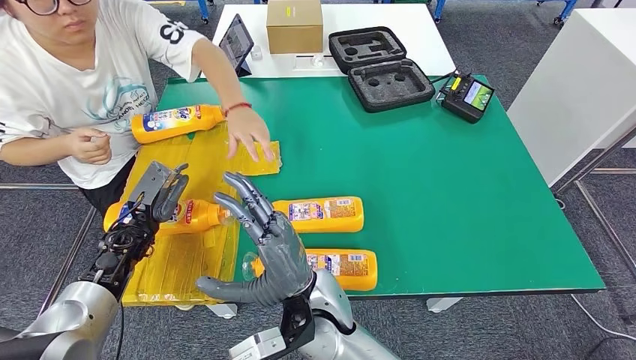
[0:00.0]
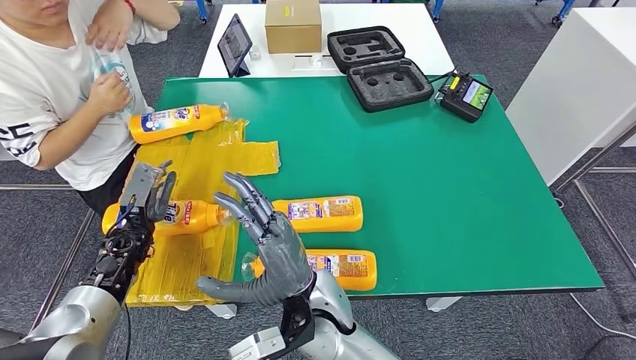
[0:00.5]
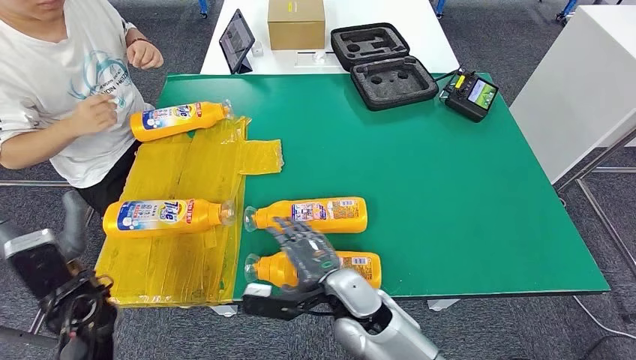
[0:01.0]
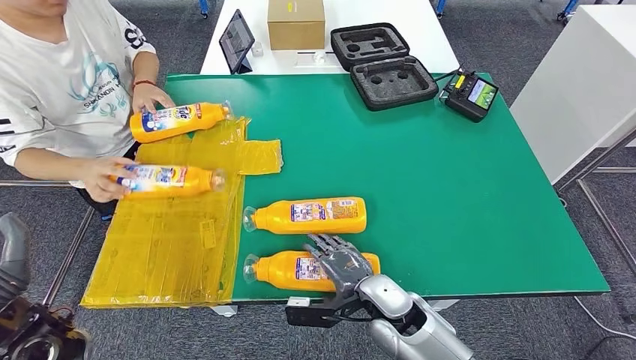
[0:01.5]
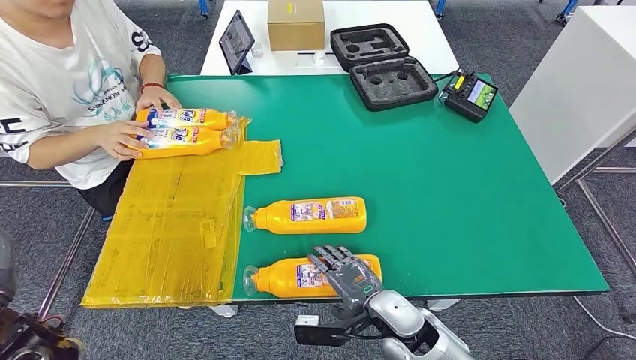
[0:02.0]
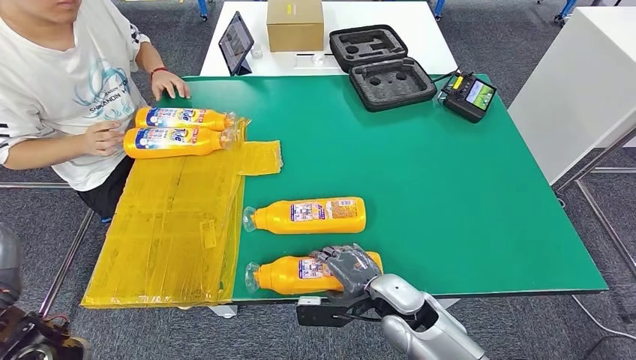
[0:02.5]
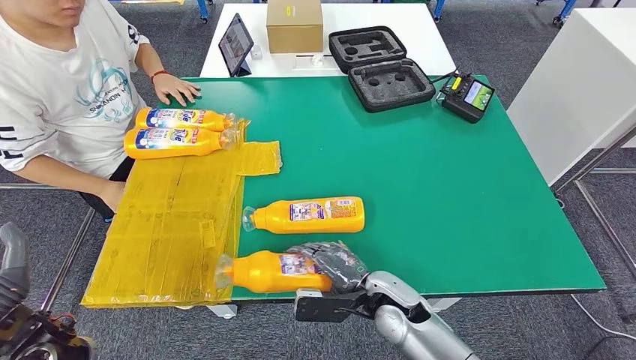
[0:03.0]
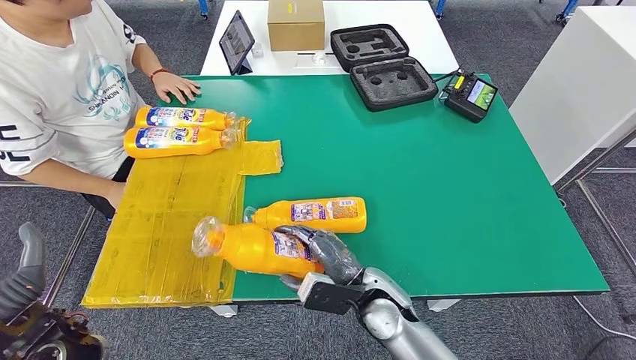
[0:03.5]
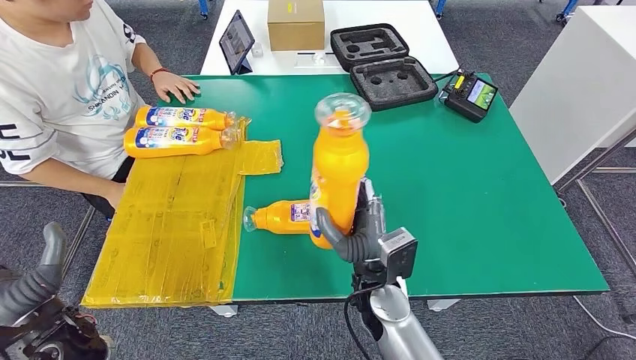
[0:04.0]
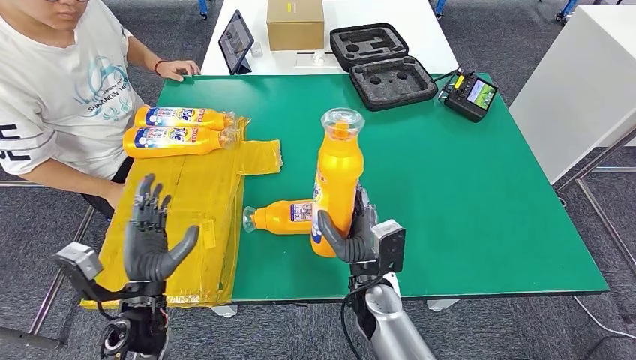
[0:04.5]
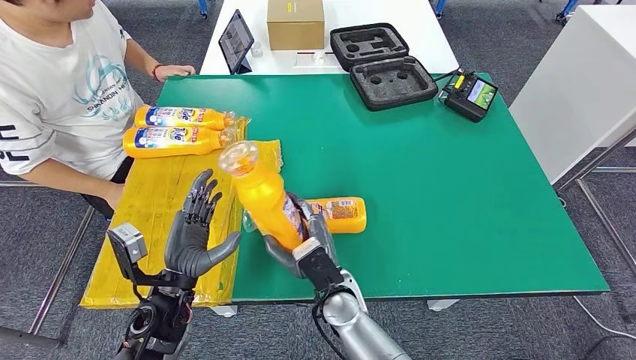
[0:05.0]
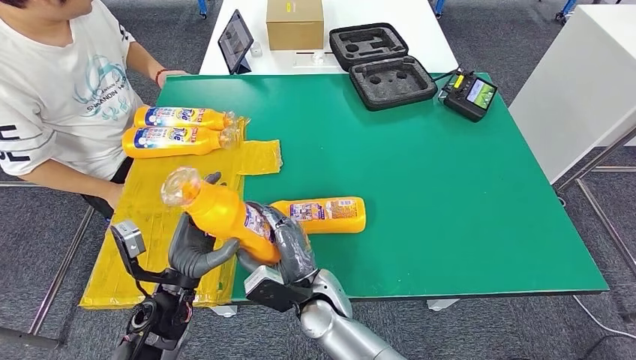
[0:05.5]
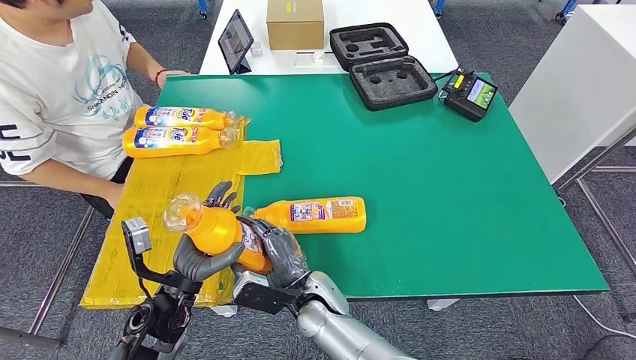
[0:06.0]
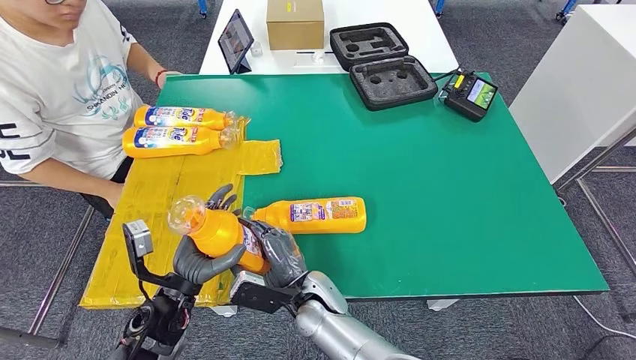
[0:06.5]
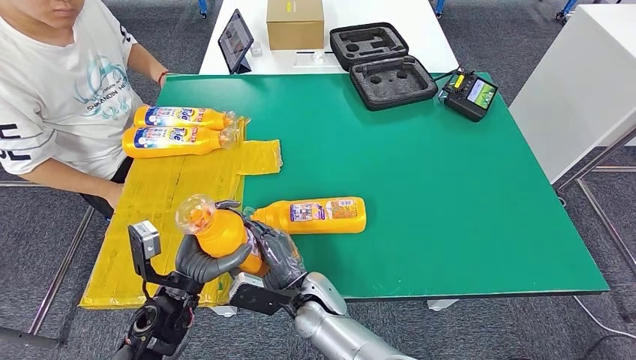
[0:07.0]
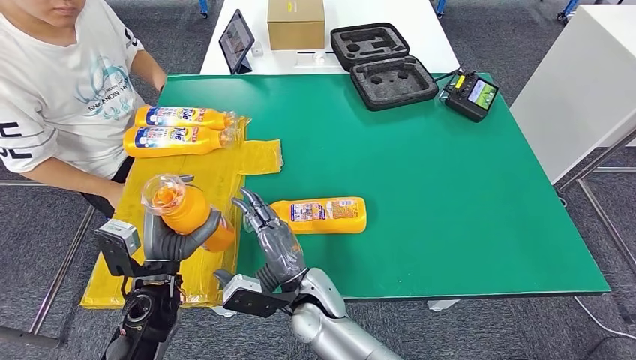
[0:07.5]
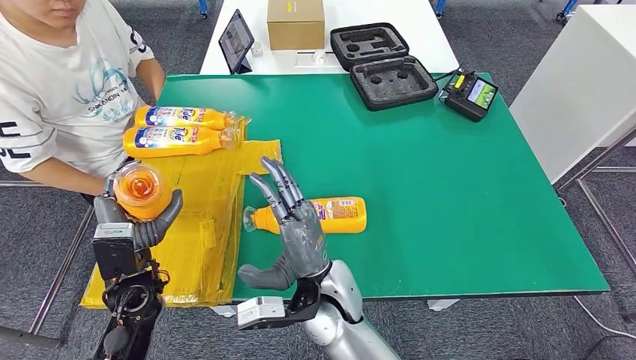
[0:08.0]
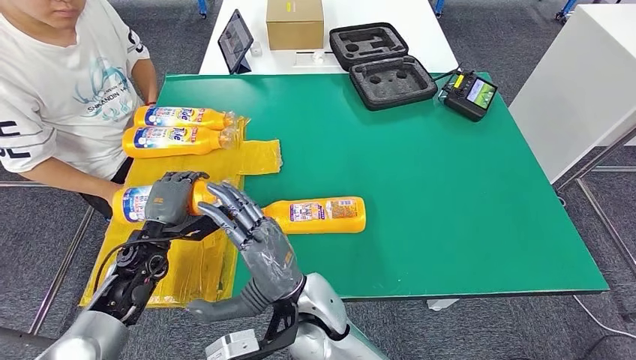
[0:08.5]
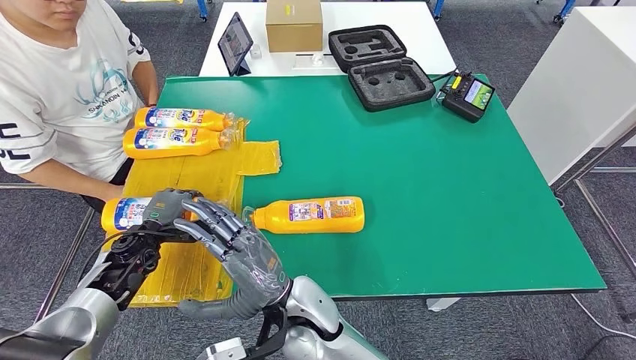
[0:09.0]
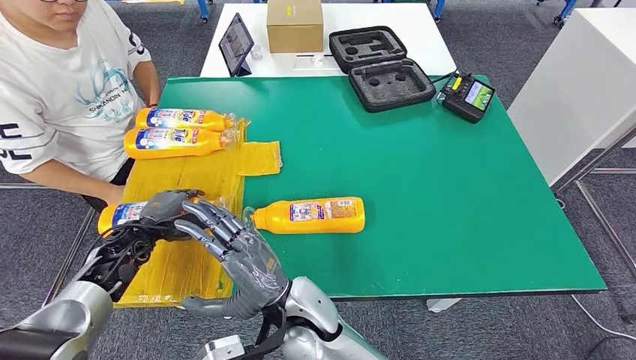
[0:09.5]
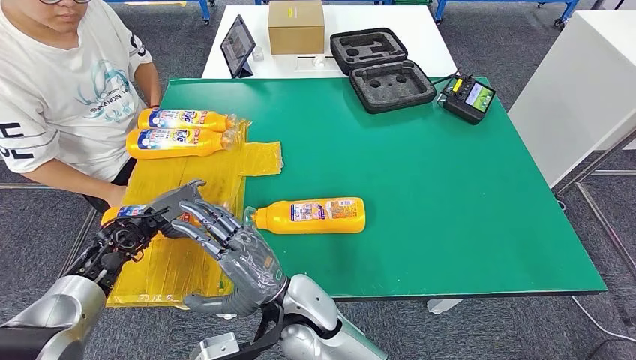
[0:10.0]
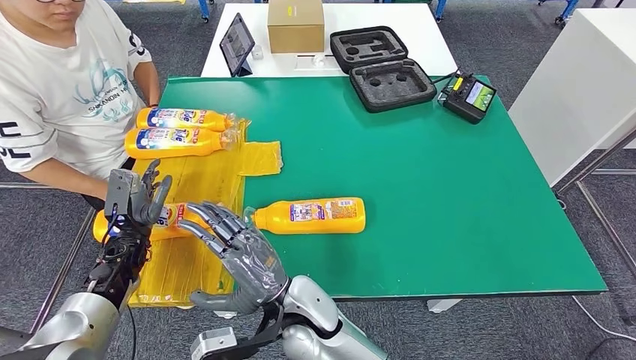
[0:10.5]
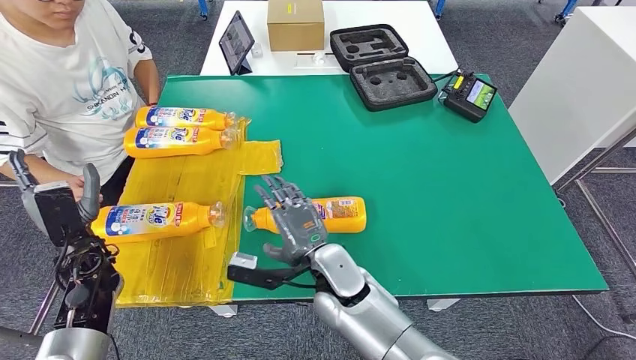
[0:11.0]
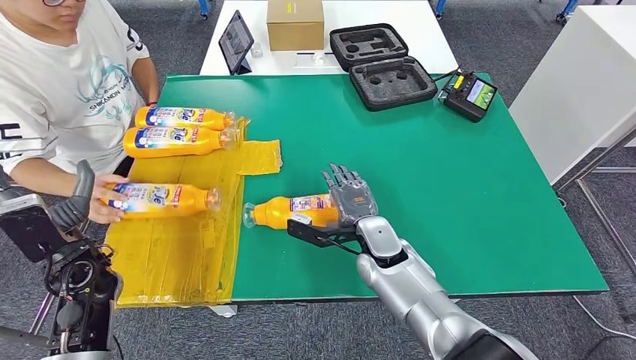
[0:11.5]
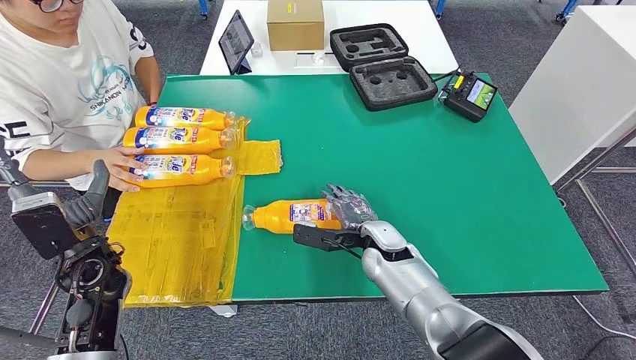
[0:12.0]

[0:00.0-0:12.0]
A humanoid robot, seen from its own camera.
Step, 0:03.0 to 0:04.5: Pick up the bottle from the table.
Step, 0:06.0 to 0:10.5: Flip the bottle to face forward.
0:02.0 to 0:04.0: The right hand changes place by some 5 cm.
0:06.0 to 0:08.0: The left hand travels to the left by about 5 cm, while the right hand is displaced upward by about 10 cm.

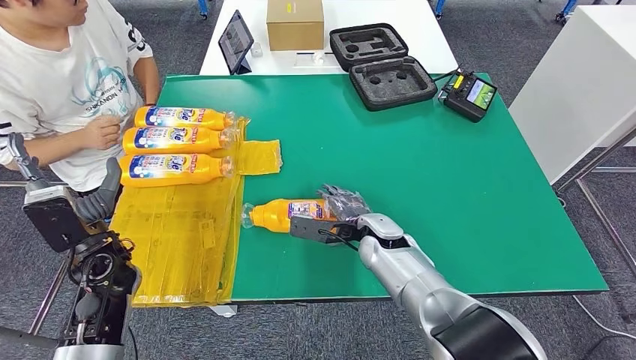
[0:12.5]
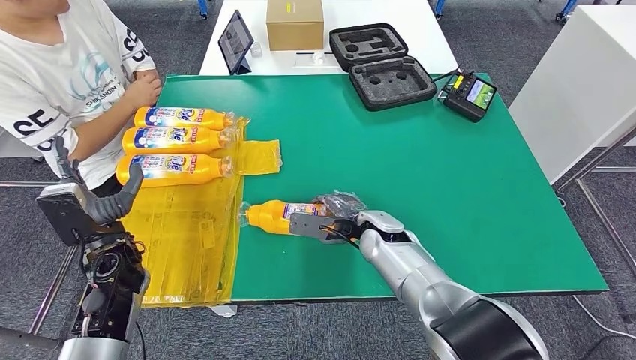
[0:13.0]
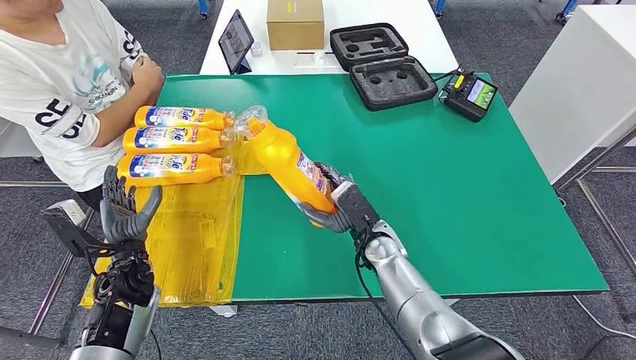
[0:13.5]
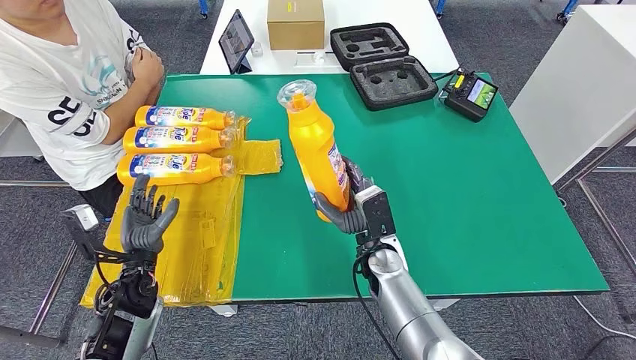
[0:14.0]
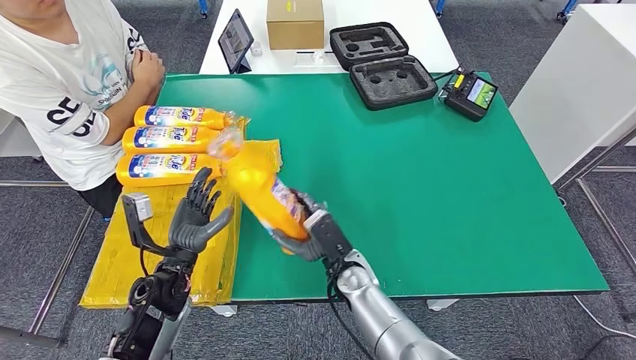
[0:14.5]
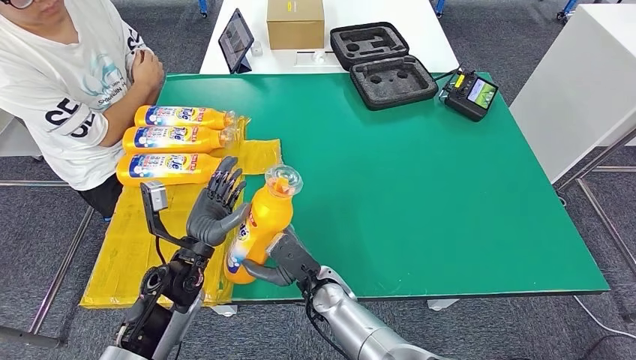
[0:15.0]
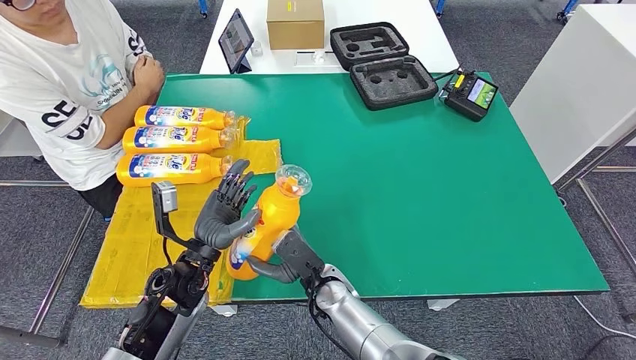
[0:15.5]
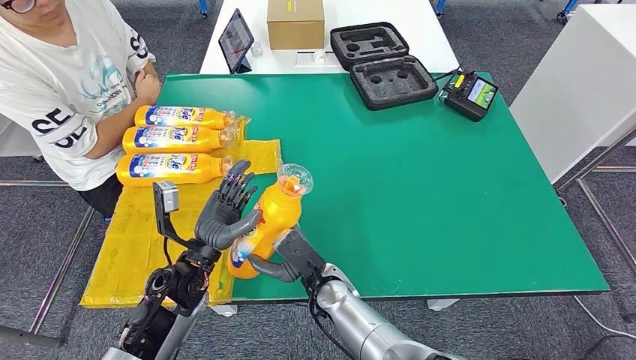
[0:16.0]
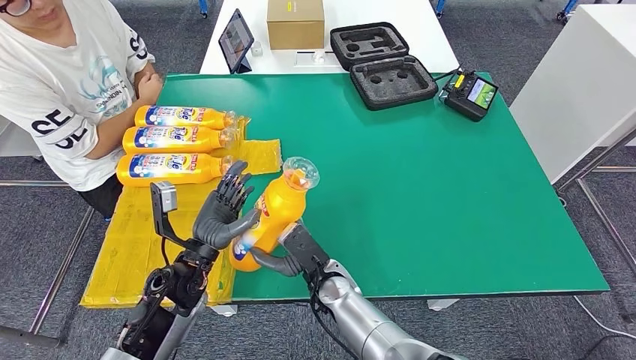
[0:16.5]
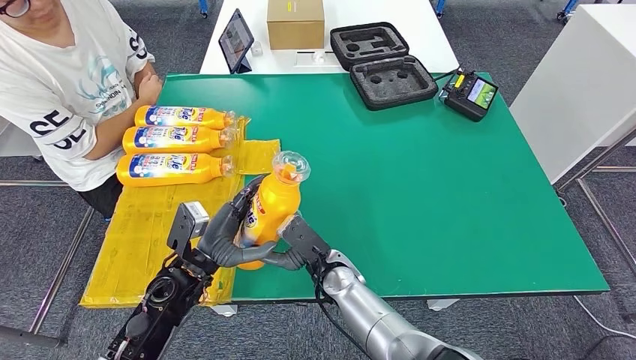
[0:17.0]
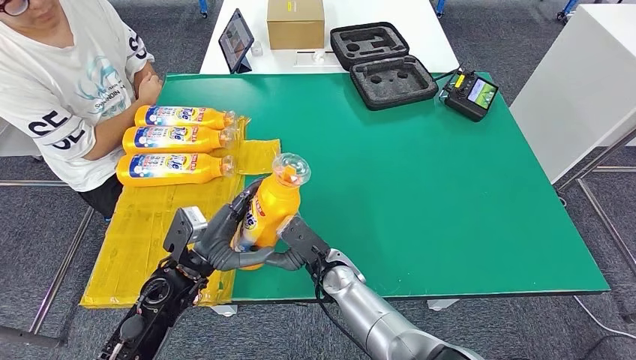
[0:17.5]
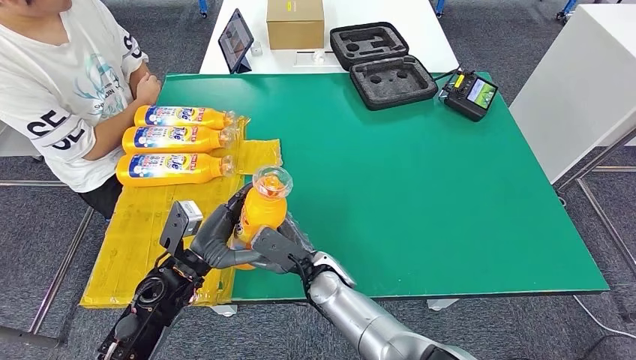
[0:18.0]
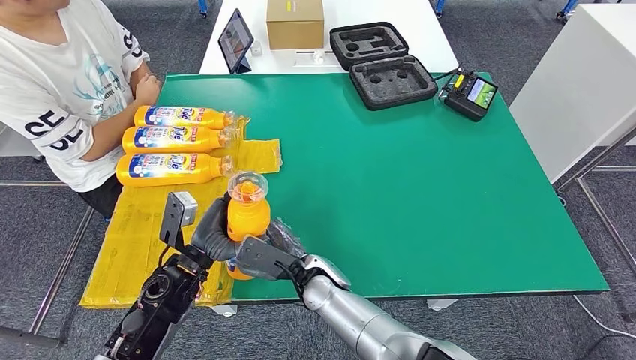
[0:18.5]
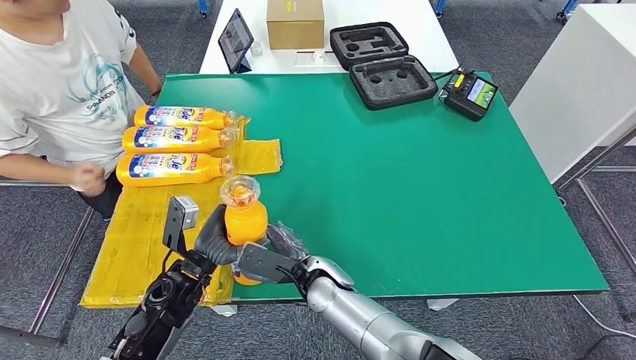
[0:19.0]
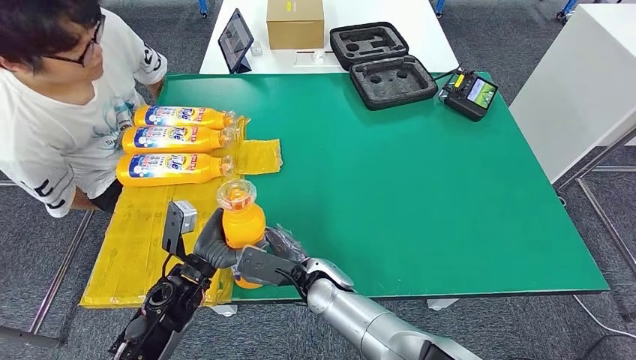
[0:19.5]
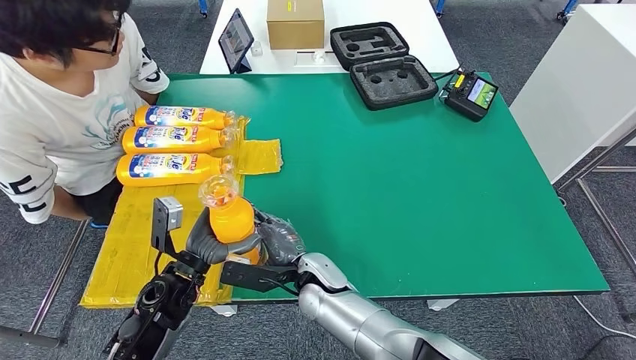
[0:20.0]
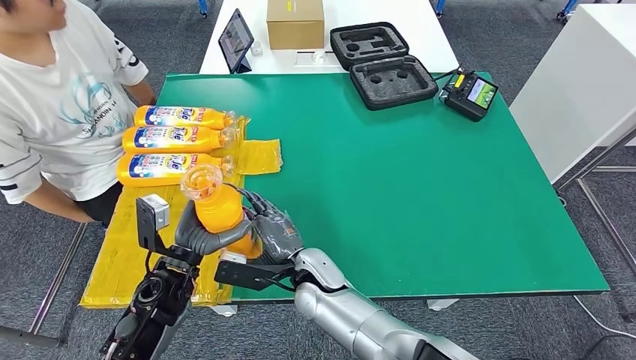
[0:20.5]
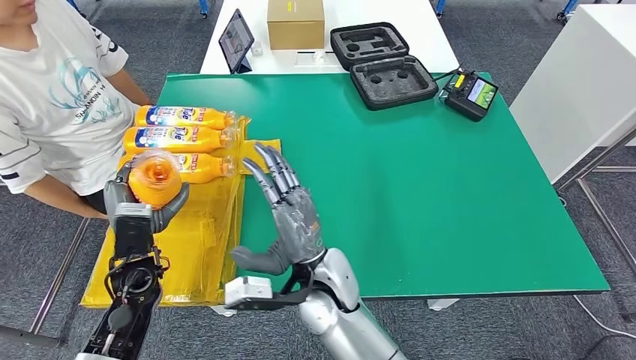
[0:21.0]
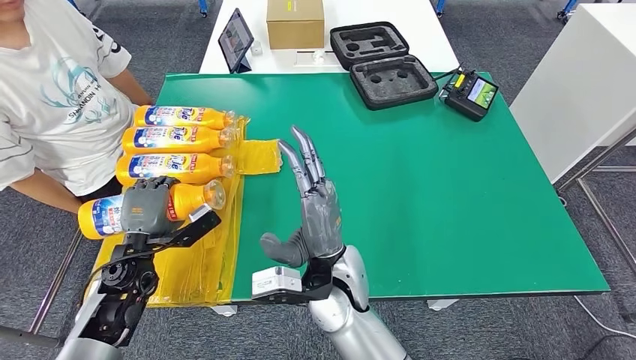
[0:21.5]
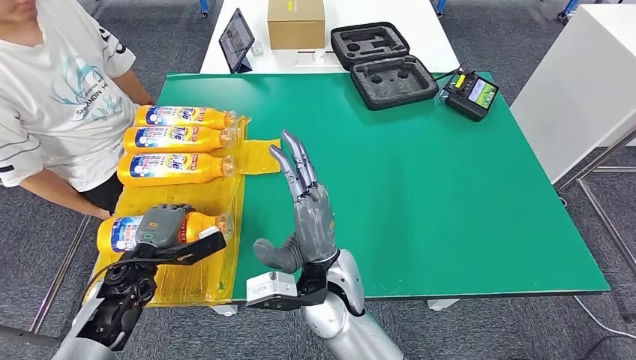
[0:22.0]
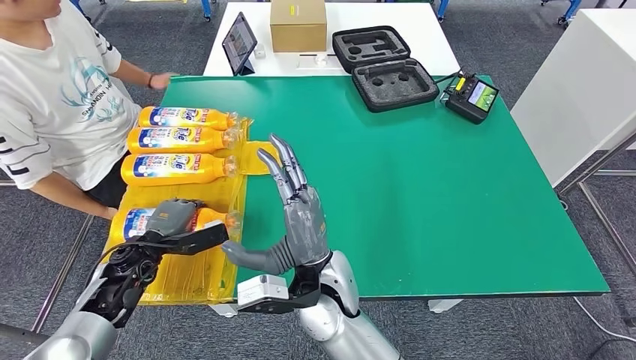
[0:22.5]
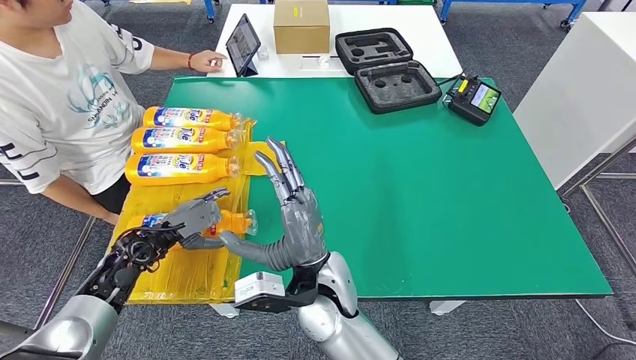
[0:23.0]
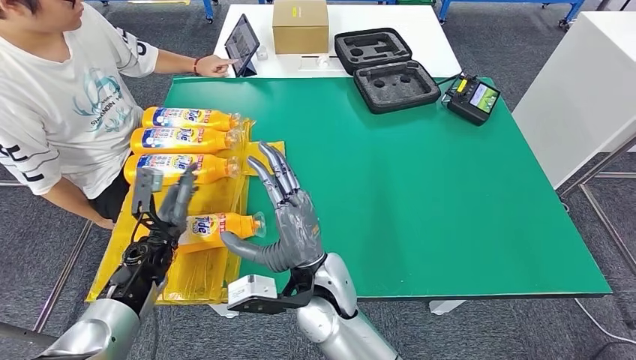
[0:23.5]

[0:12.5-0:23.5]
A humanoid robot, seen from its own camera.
Step, 0:13.0 to 0:14.5: Pick up the bottle from the table.
Step, 0:15.5 to 0:23.5: Flip the bottle to face forward.
0:14.5 to 0:16.0: The left hand ends up roughly 5 cm from where it was, while the right hand ends up some 5 cm from where it was.
